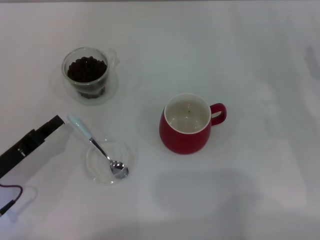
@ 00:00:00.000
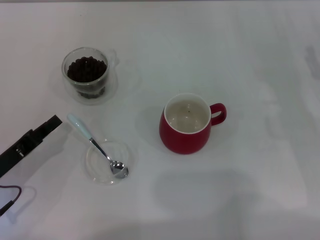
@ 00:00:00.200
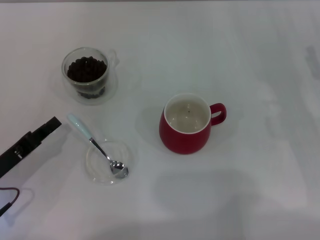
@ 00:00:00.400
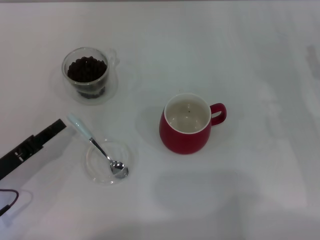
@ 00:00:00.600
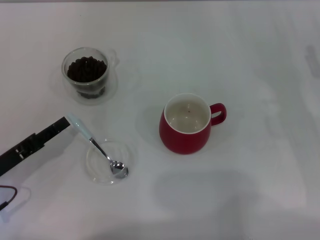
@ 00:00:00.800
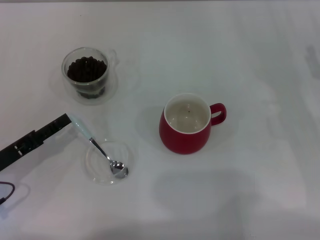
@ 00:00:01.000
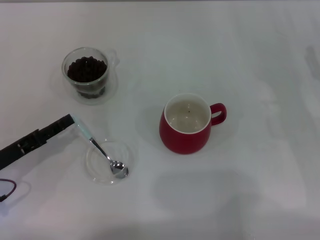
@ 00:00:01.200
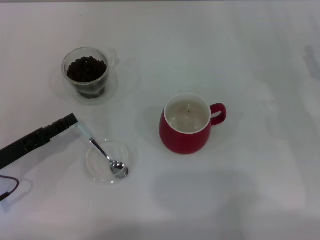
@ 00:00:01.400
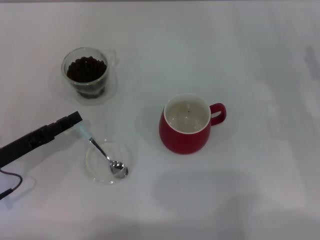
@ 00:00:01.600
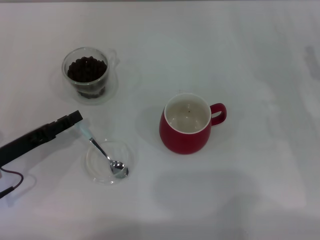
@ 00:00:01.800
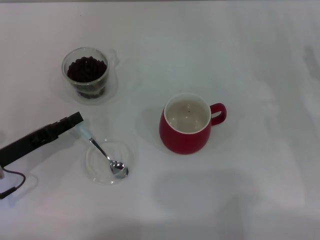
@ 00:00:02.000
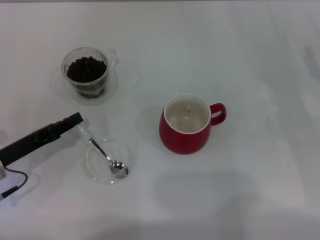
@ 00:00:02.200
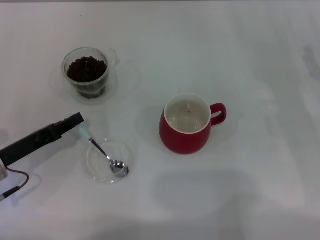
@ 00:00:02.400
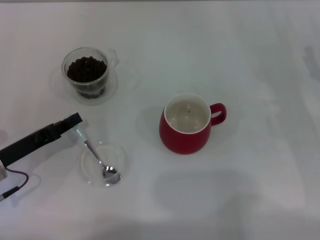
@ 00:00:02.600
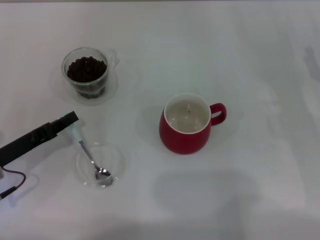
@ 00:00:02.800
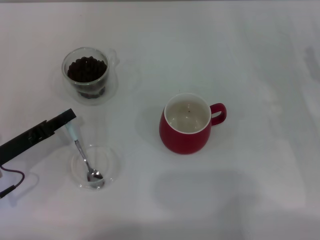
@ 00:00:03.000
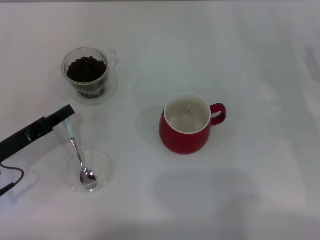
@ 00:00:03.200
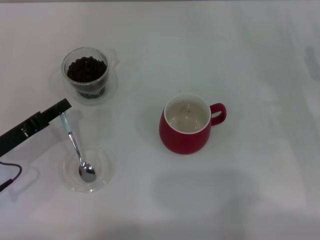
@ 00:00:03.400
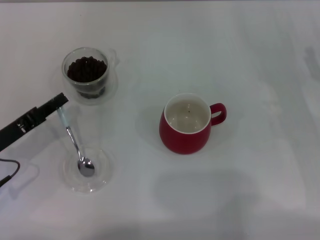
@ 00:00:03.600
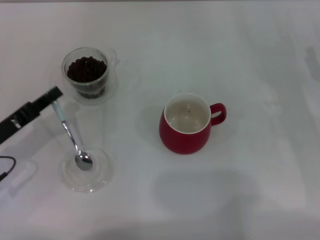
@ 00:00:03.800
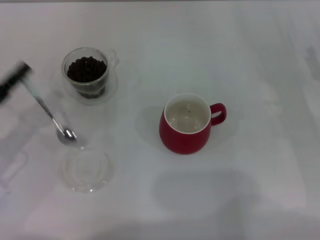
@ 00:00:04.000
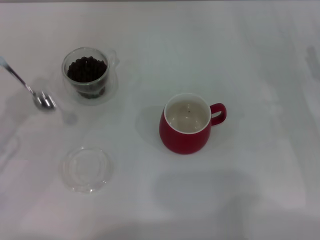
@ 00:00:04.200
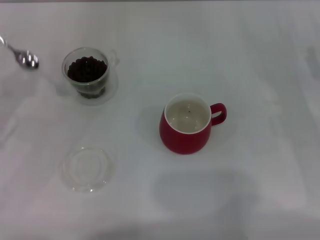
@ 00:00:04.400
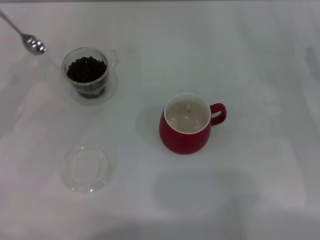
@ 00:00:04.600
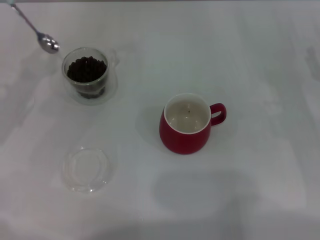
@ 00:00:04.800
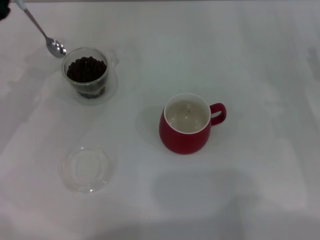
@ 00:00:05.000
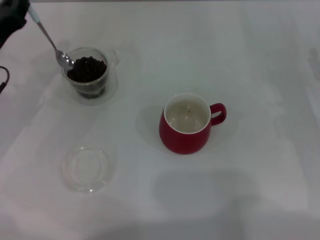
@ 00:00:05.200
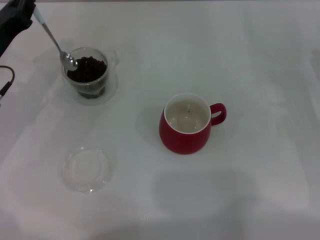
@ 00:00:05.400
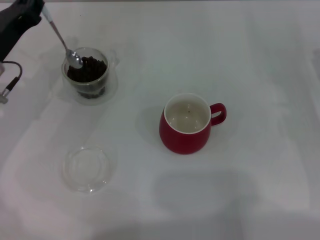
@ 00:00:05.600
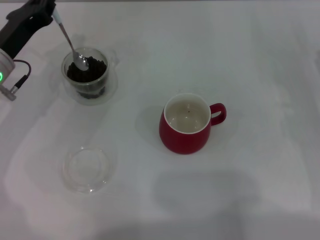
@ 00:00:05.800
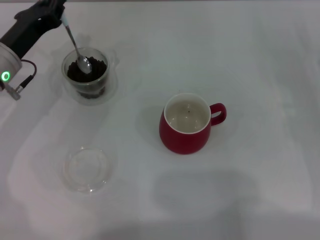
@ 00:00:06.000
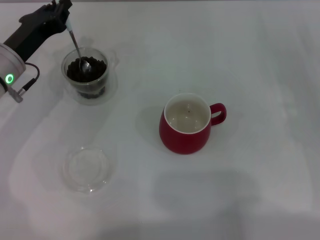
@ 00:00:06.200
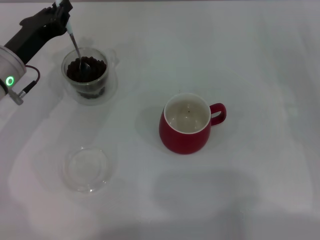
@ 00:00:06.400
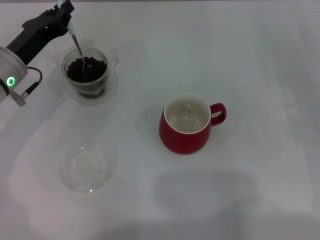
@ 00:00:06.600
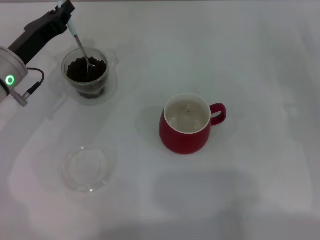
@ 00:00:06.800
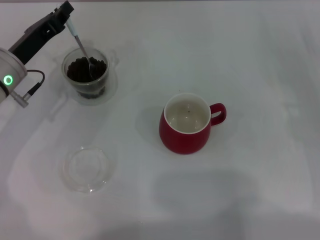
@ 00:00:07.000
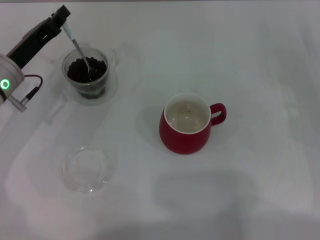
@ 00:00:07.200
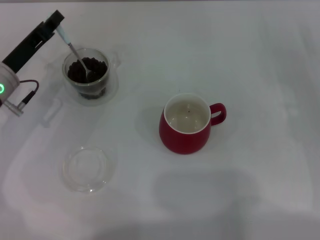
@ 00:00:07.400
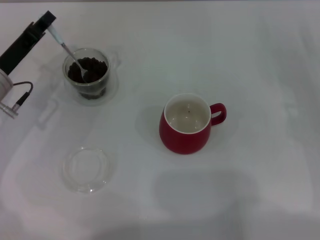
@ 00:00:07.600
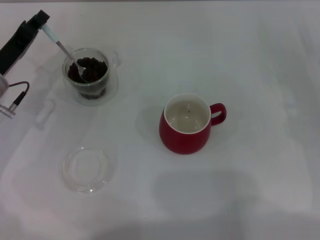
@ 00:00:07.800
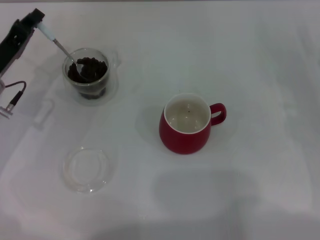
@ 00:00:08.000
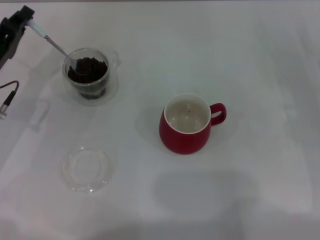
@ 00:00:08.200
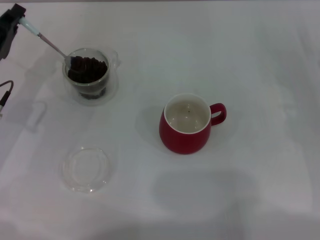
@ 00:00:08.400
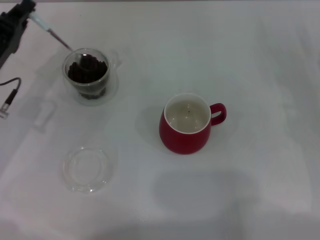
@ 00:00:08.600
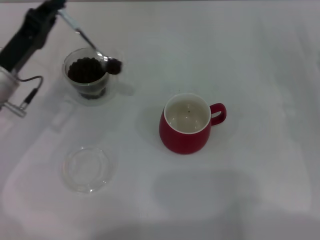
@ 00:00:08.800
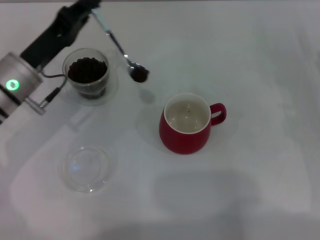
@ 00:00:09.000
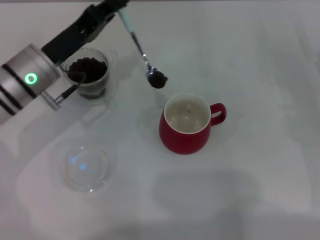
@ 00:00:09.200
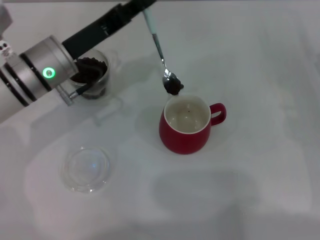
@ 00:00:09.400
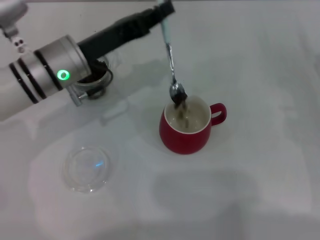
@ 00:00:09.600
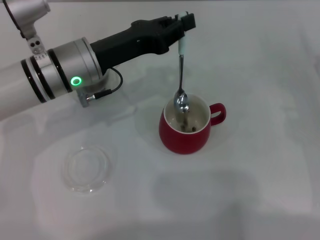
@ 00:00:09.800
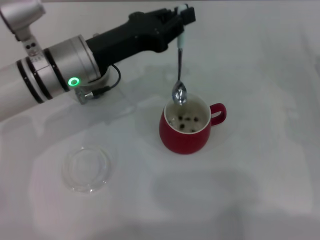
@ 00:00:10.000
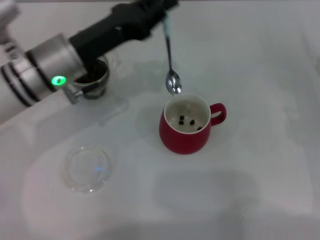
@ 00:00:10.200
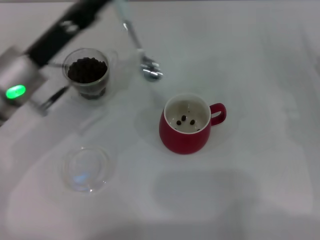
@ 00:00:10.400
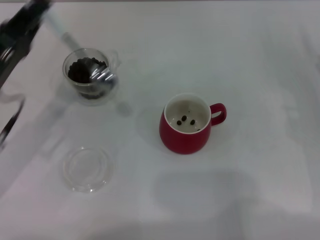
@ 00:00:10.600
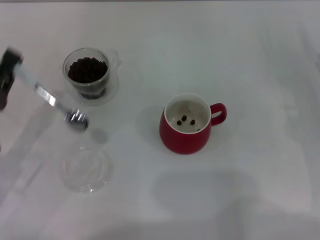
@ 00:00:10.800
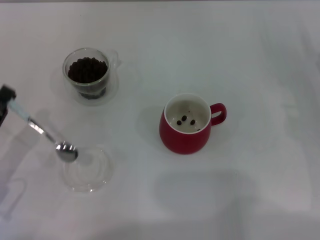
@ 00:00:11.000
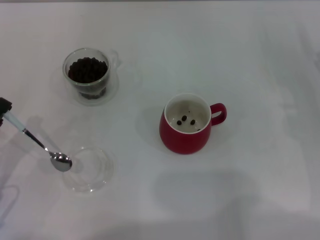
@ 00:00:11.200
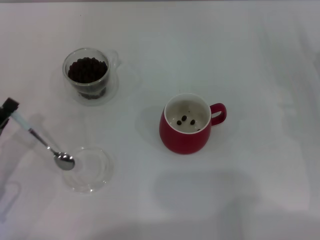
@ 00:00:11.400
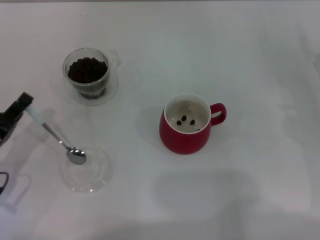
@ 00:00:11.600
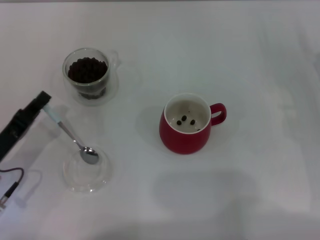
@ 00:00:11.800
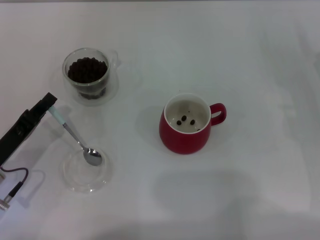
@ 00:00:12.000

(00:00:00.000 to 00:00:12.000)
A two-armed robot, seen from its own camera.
Task of the whole recording: Use a blue spoon to take out the coffee beans from the glass and pour them into the red cup.
Step, 00:00:00.000 - 00:00:03.800: Pick up the spoon with the right gripper.
00:00:00.000 - 00:00:01.600: The left gripper opens its fingers.
00:00:01.600 - 00:00:03.000: The left gripper closes its fingers.
00:00:03.000 - 00:00:04.400: The left gripper goes approximately 10 cm upward.
00:00:04.400 - 00:00:06.000: The left gripper shifts some 15 cm to the right and forward.
00:00:07.600 - 00:00:09.000: The left gripper shifts by roughly 5 cm.
00:00:09.000 - 00:00:10.400: The left gripper travels to the right and back again, about 10 cm each way.
00:00:10.400 - 00:00:12.000: The left gripper is displaced downward, backward and to the left by approximately 15 cm.

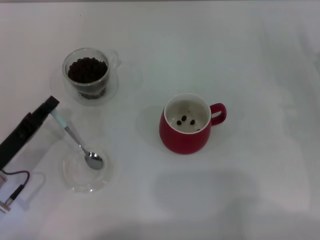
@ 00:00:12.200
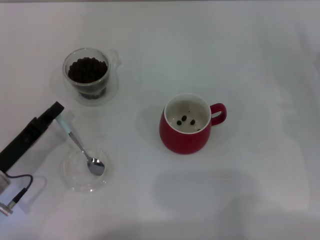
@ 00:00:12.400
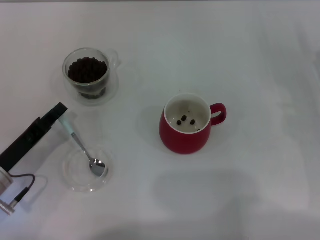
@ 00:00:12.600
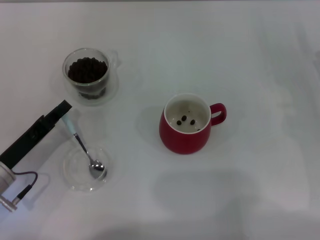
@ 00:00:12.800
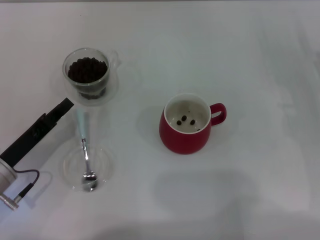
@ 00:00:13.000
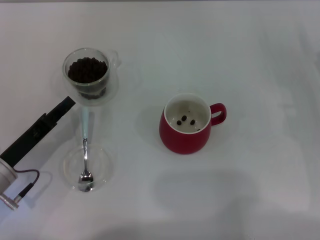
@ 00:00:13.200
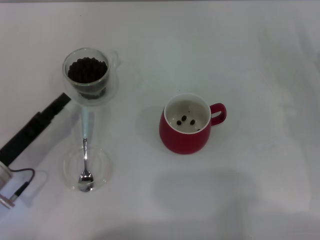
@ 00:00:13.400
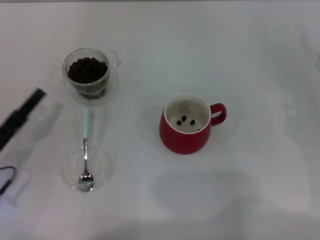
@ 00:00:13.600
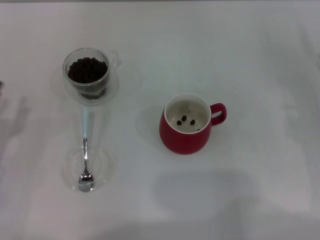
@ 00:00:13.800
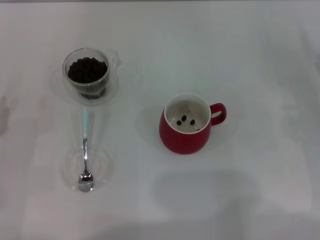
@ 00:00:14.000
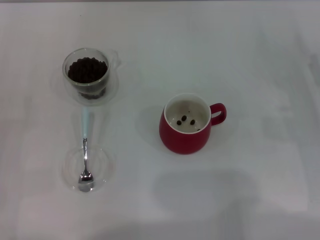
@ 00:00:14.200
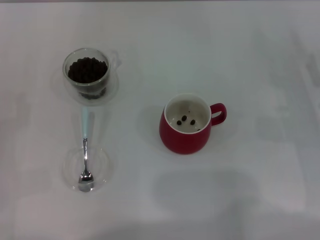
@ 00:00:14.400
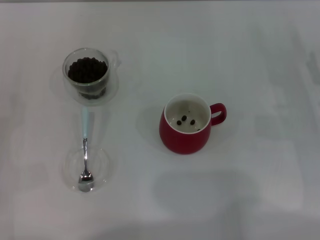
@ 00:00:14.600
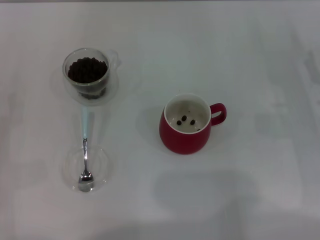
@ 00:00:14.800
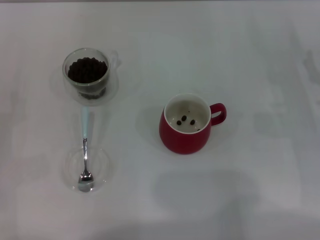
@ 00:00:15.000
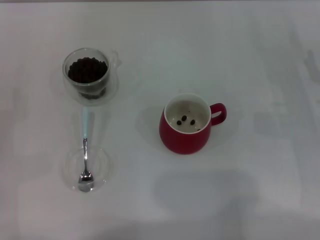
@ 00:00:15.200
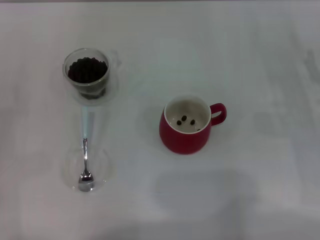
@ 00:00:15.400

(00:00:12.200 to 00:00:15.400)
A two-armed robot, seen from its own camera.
Task of the whole recording: Use a blue spoon to take out the coffee beans from the glass and pour them into the red cup.
00:00:12.200 - 00:00:13.800: The left gripper opens.
